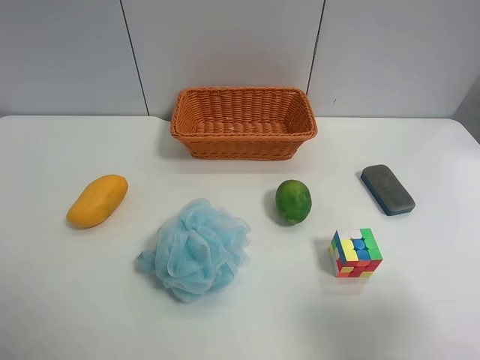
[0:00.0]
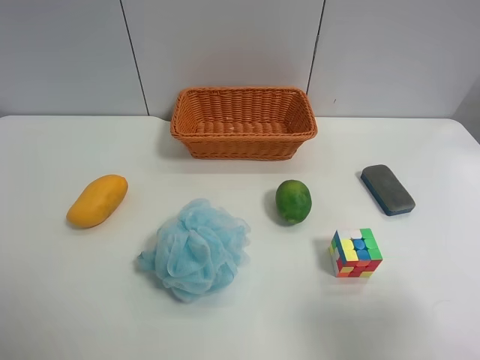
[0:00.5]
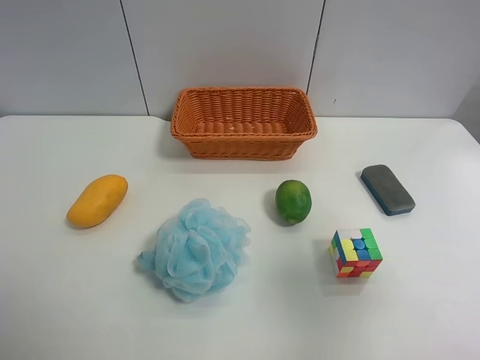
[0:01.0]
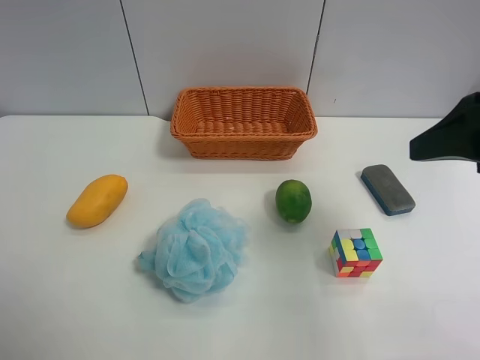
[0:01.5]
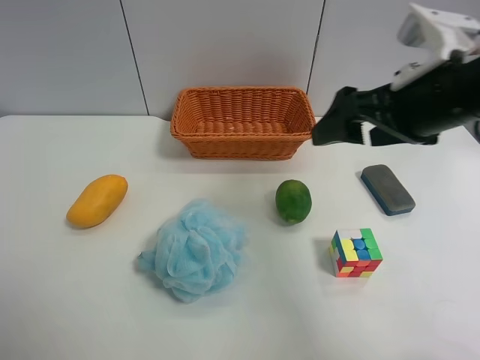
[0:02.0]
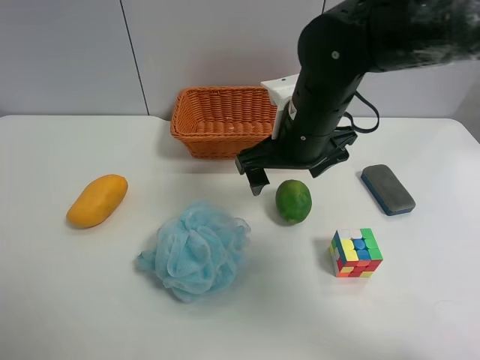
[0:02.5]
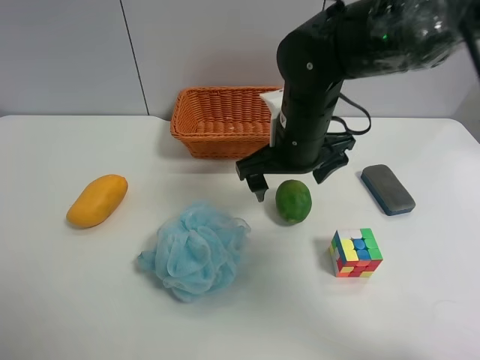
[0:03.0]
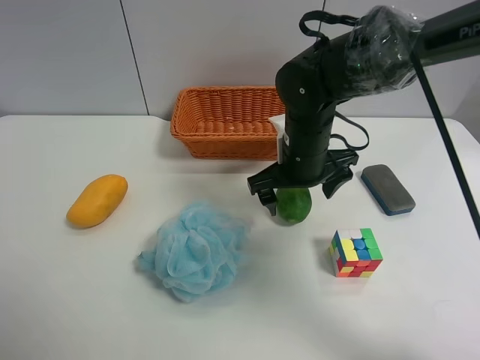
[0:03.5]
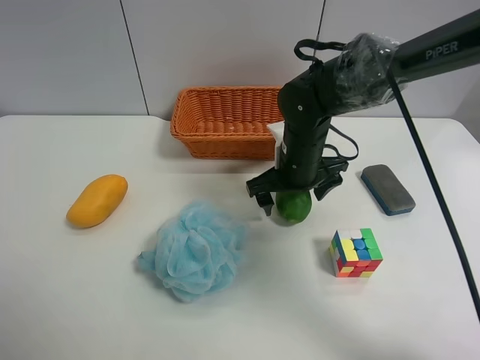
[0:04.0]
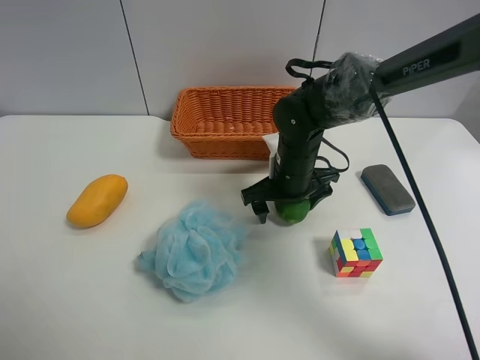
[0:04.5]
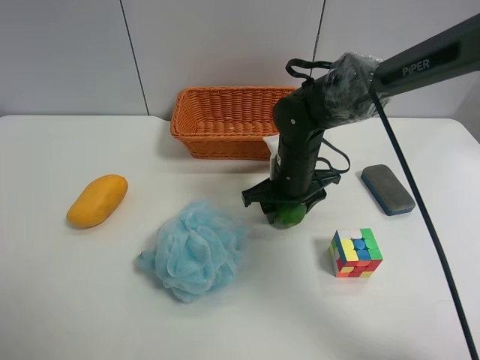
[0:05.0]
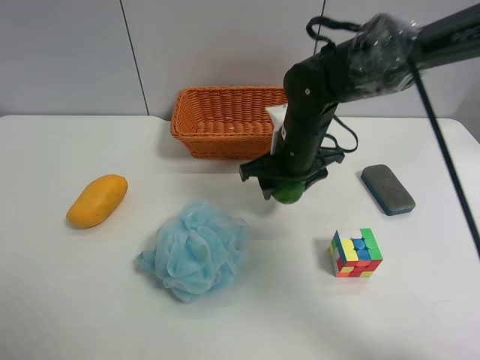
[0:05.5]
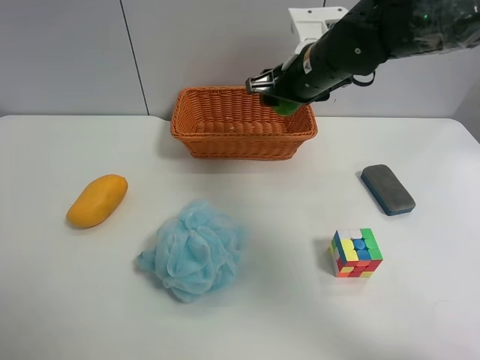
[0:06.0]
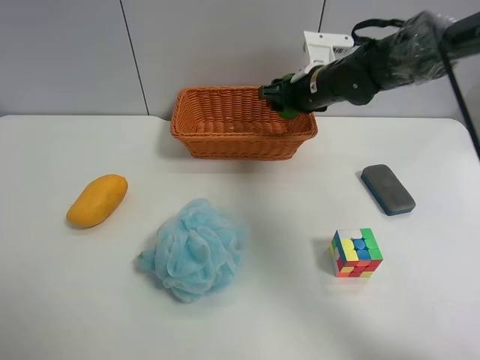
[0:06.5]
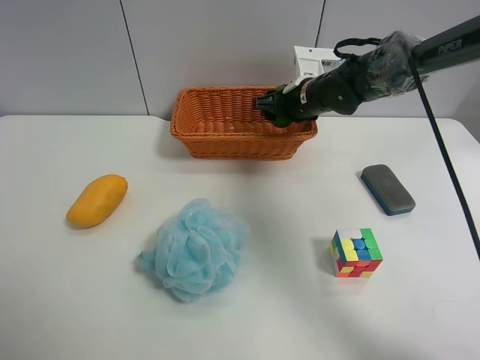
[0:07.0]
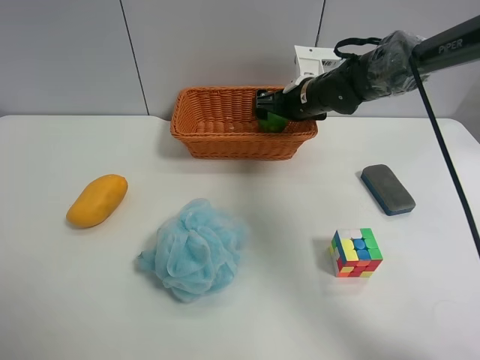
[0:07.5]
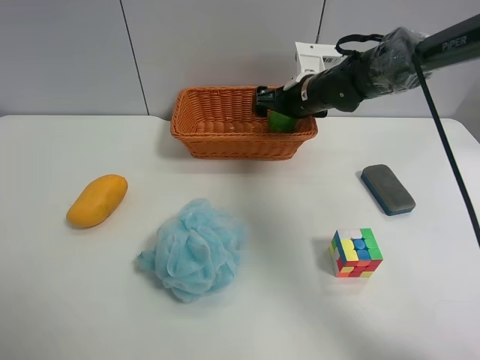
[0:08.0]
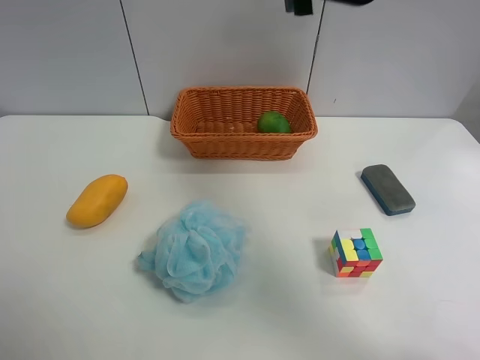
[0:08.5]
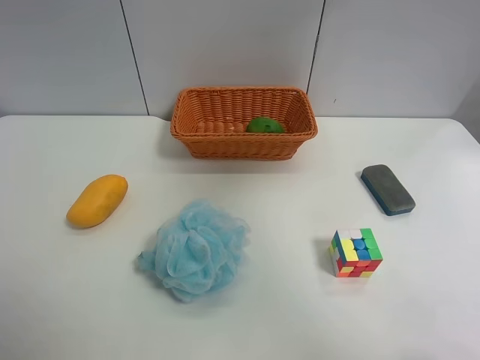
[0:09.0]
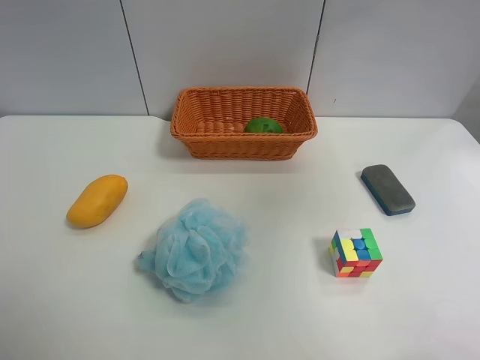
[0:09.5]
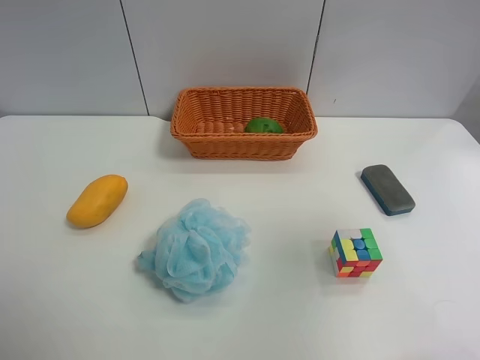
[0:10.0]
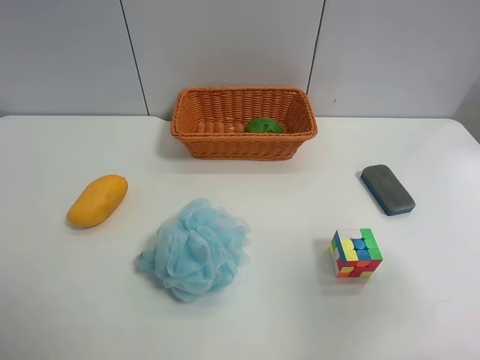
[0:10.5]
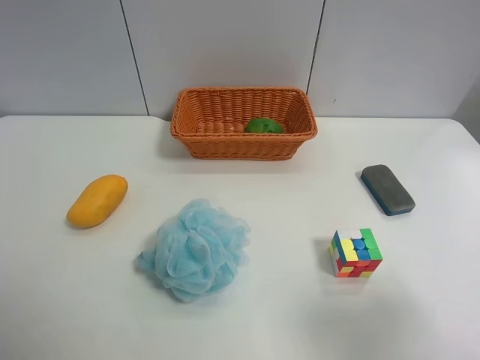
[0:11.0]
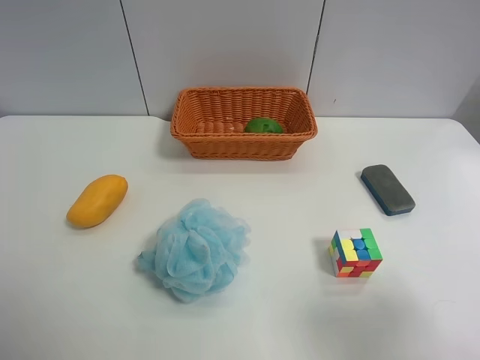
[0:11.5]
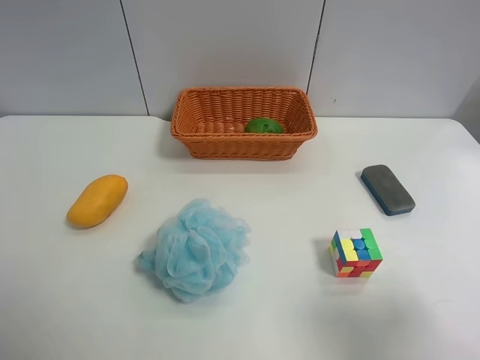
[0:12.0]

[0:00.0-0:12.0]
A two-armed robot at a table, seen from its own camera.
Task of the whole recording: Randomly grab green lemon or mangoes from the table and put them in a basket.
Step, 0.0 to 5.0 s: Grasp the Lemon with the right gripper.
Step, 5.5 to 8.0 s: Place the Lemon into the basket with the right gripper.
0.0 to 2.0 s: The right gripper heads forward, covering some 25 cm.
2.0 to 4.0 s: The right gripper heads downward, forward and to the left, covering about 20 cm.
4.0 to 6.0 s: The right gripper moves upward, about 10 cm, and closes up.
6.0 to 8.0 s: The right gripper travels downward and forward by about 10 cm, and opens up.
8.0 to 10.0 s: The right gripper moves backward, upward and to the right, roughly 50 cm.
10.0 to 12.0 s: The right gripper goes approximately 15 cm downward.

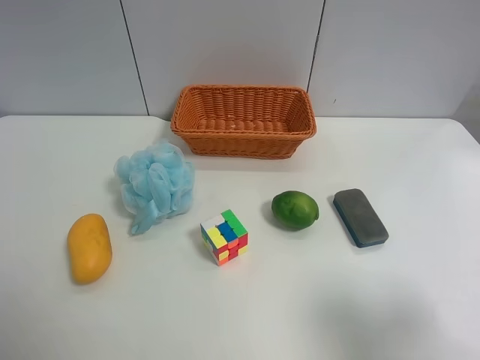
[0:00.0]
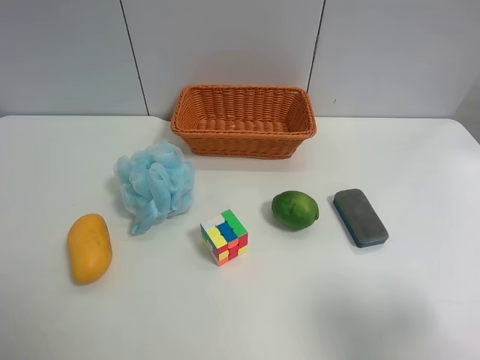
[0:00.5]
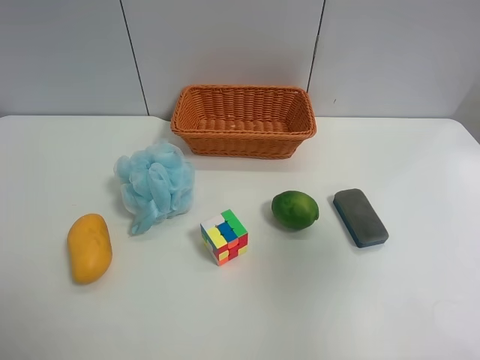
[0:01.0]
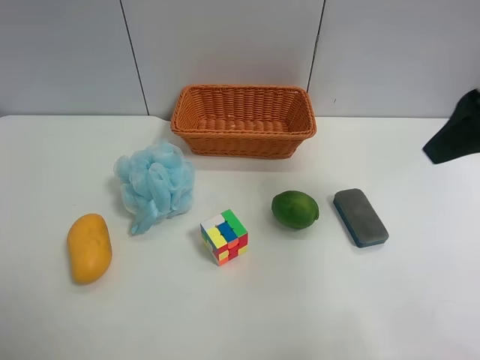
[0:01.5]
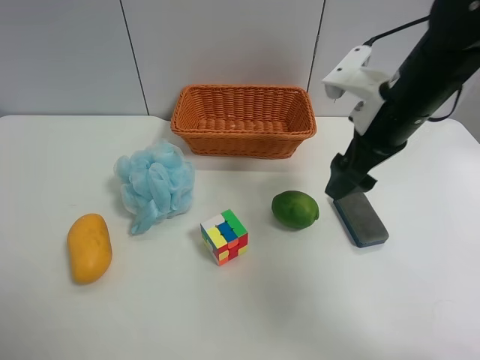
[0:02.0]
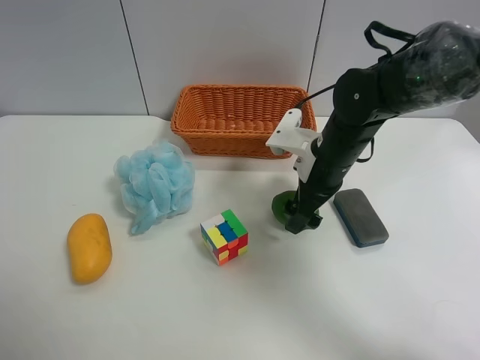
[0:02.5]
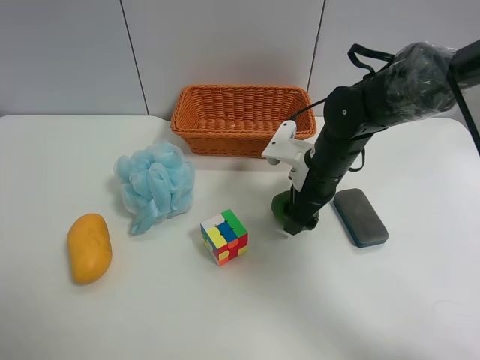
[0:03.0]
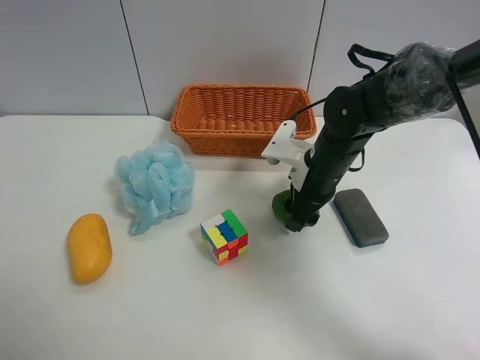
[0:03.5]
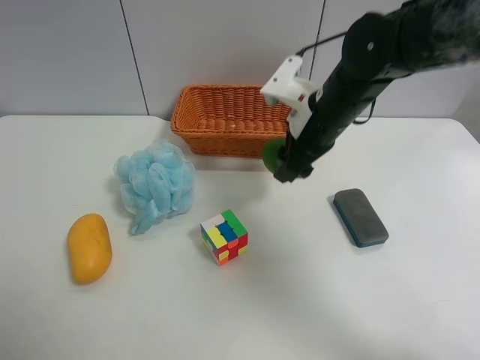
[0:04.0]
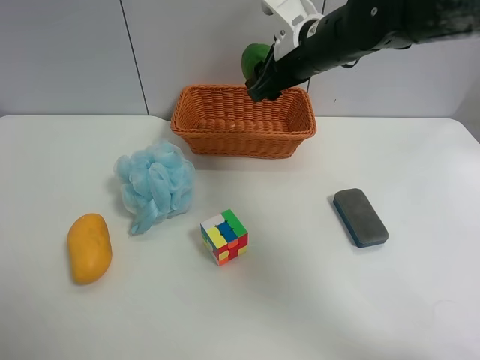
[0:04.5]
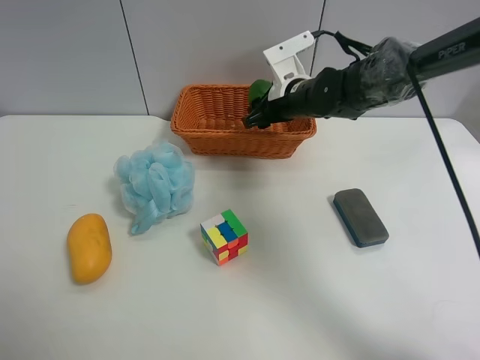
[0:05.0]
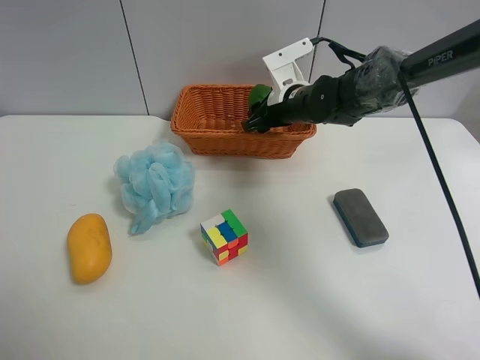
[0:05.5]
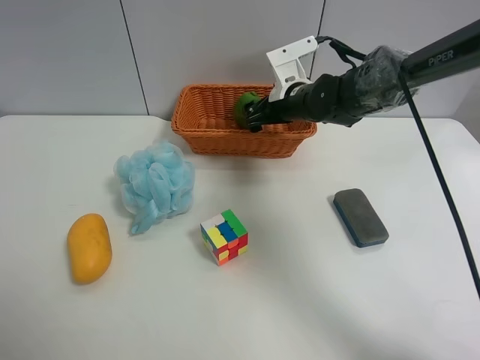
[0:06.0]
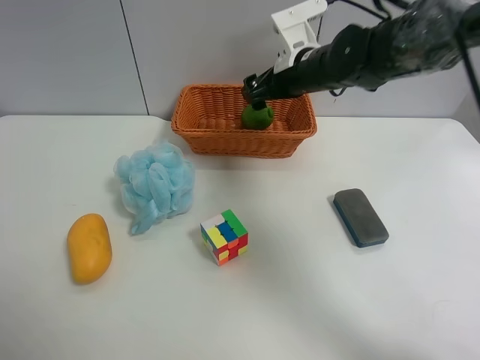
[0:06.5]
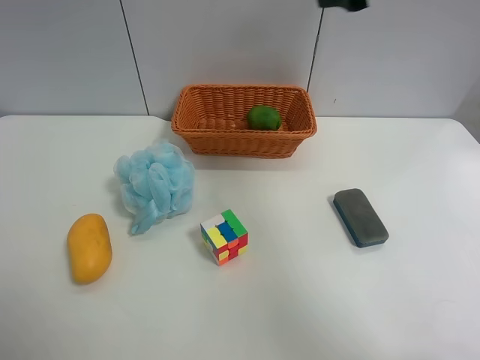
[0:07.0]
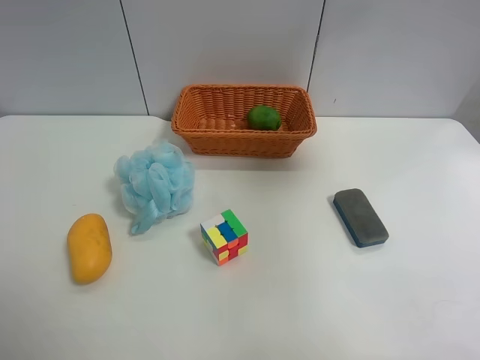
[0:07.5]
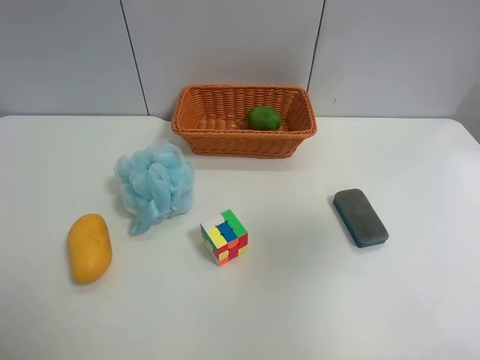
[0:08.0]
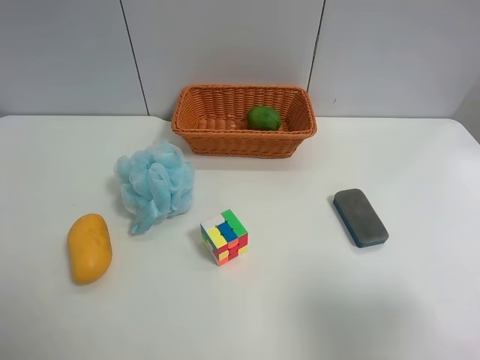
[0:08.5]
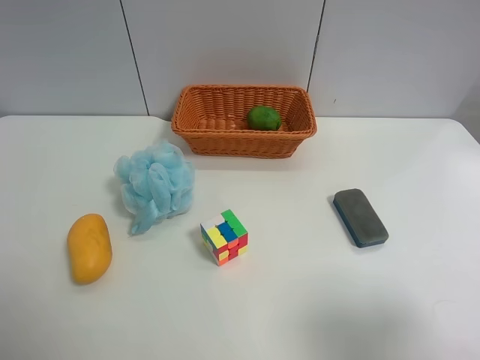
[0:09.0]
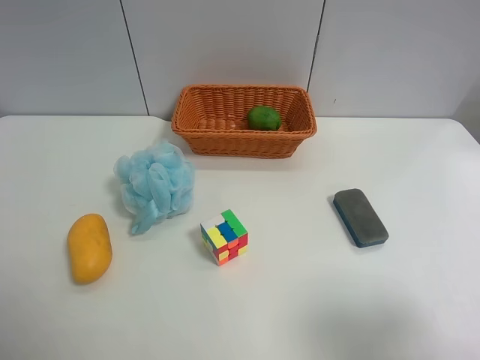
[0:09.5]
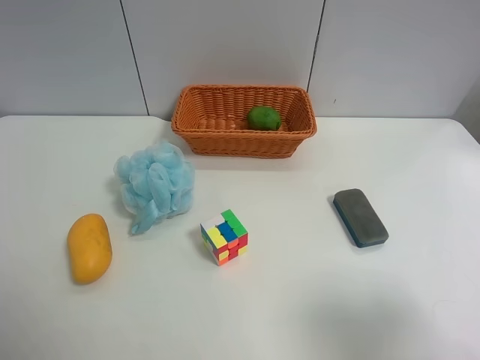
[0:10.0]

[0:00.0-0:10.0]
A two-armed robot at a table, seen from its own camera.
Task of the whole recording: Randomly grab green lemon or mangoes from the table and put them in a basket.
Step, 0.0 to 3.5 s: Grasp the Lemon with the right gripper.
Step, 4.0 to 6.5 s: Place the Lemon into the basket with the right gripper.
0.0 to 2.0 s: The right gripper moves forward, approximately 30 cm.
2.0 to 4.0 s: The right gripper goes approximately 5 cm to the left, goes downward and returns, roughly 10 cm each way, and closes.
4.0 to 6.0 s: The right gripper moves forward, roughly 10 cm, and opens up.
6.0 to 8.0 s: The right gripper is displaced backward, upward and to the right by some 50 cm.
8.0 to 10.0 s: The right gripper travels downward and backward by about 15 cm.

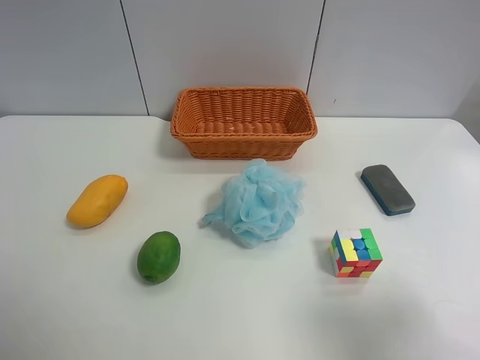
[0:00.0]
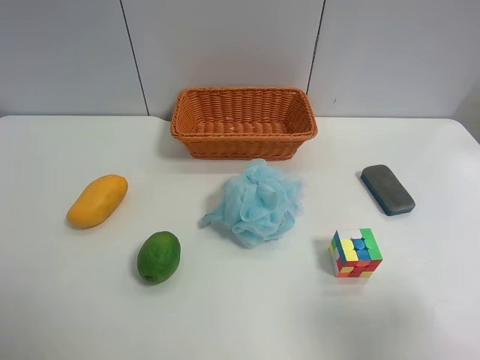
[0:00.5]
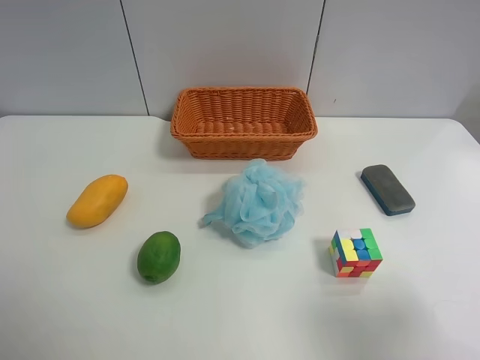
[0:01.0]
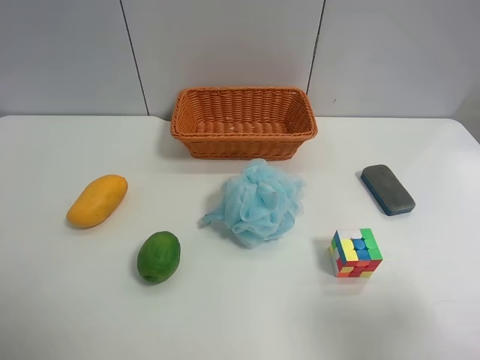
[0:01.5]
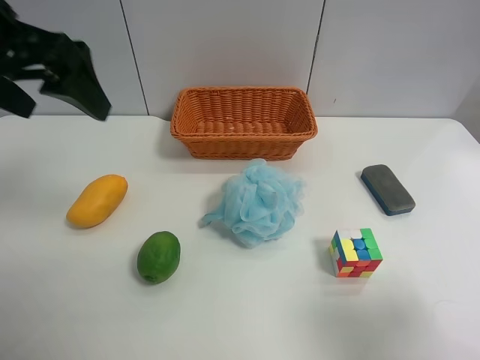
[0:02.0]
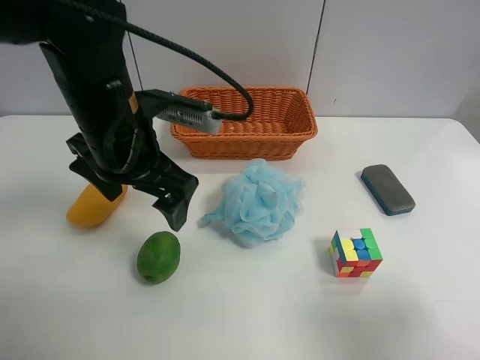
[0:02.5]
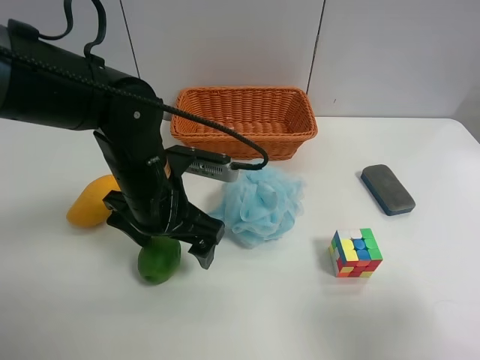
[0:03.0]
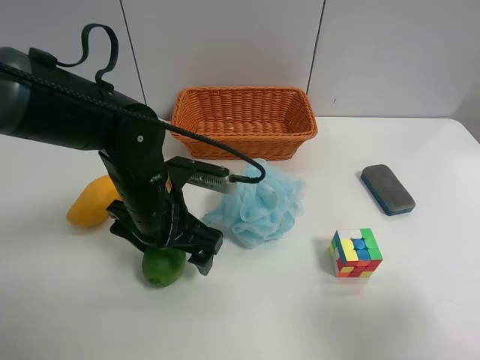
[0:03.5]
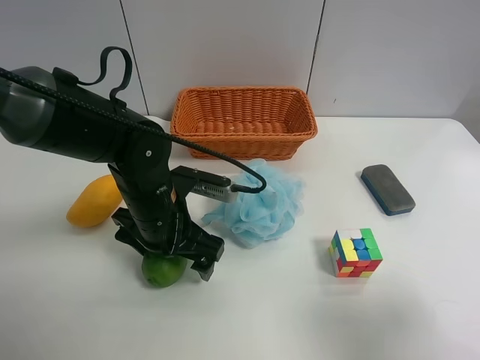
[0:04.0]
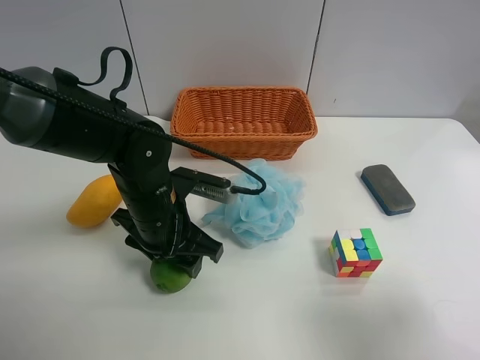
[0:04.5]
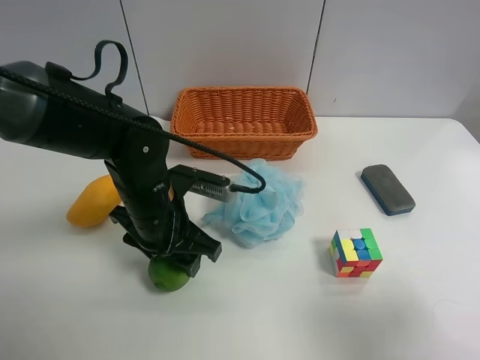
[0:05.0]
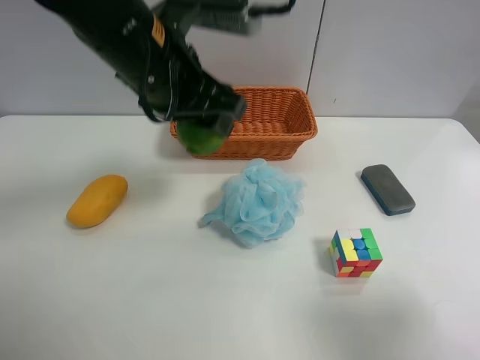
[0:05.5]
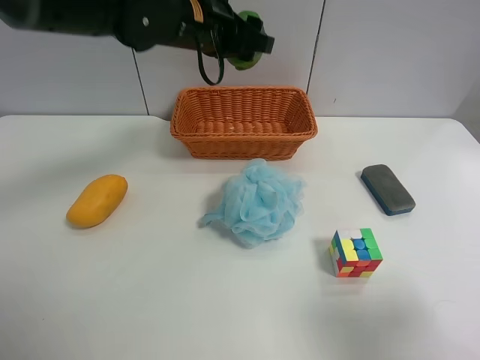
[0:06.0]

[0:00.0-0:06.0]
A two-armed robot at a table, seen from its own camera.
Task of the whole recording: Randomly grab green lemon or mangoes from the table and put them in a basket.
Step, 0.0 to 4.5 s: Grasp the Lemon with the left gripper.
0.0 to 2.0 s: The left gripper moves forward and to the right, some 25 cm.
2.0 to 4.0 s: The left gripper is displaced downward and to the right by some 25 cm.
4.0 to 6.0 s: The left gripper travels upward and forward by roughly 20 cm, and closes up.
